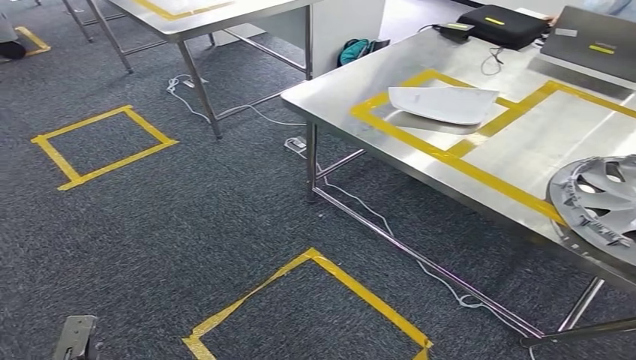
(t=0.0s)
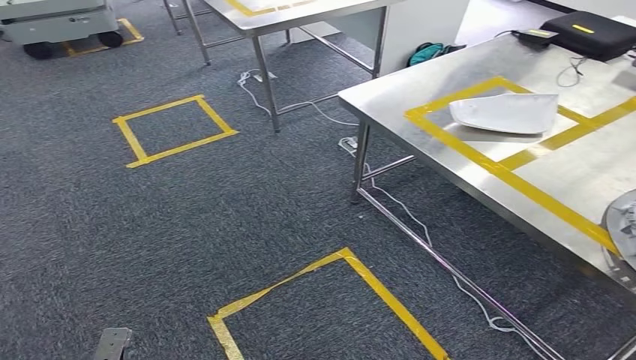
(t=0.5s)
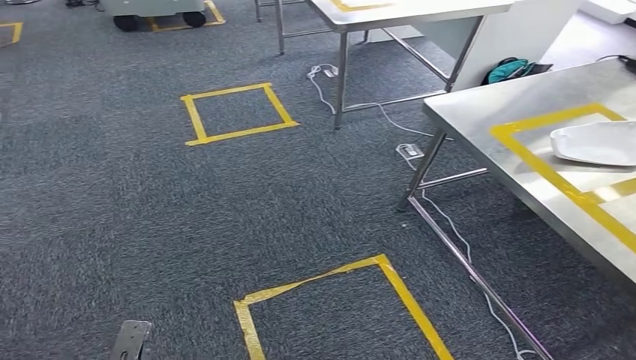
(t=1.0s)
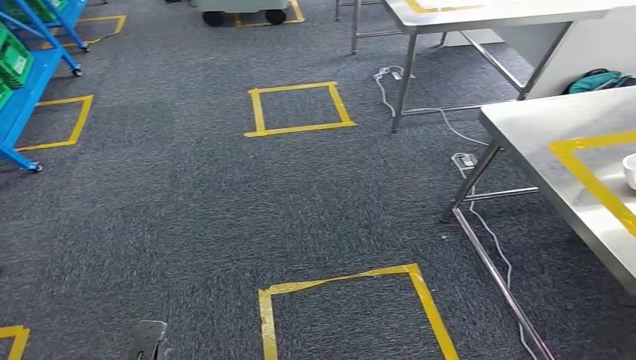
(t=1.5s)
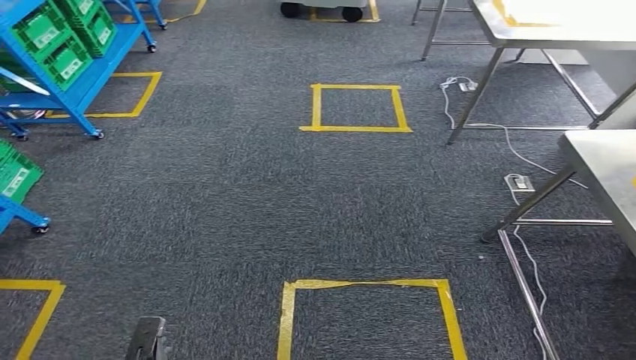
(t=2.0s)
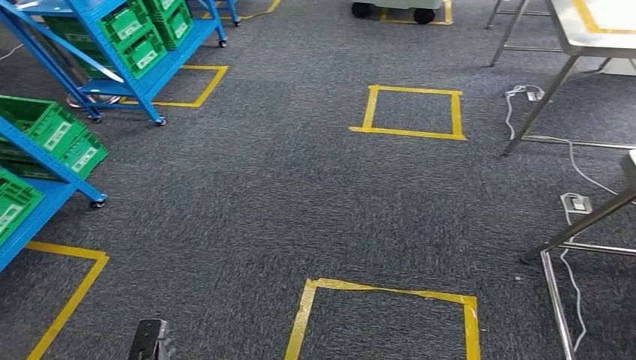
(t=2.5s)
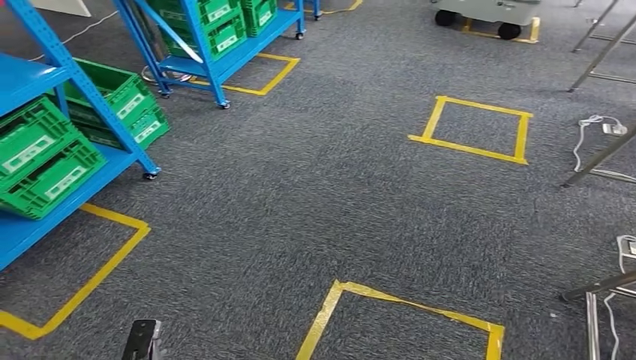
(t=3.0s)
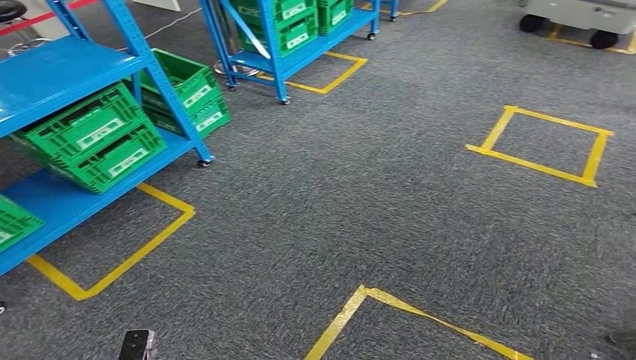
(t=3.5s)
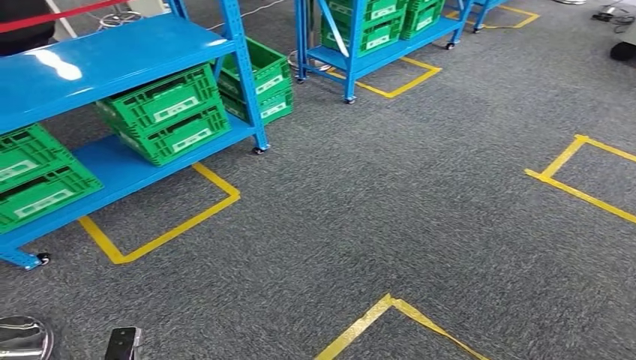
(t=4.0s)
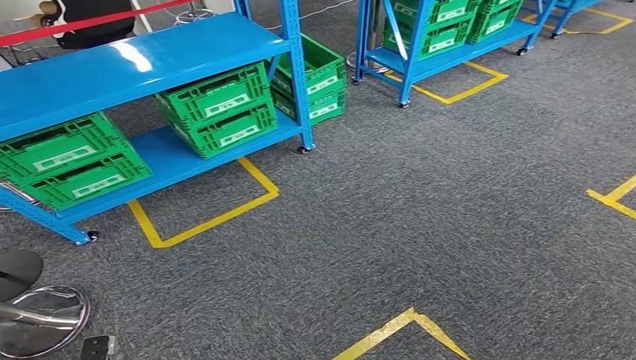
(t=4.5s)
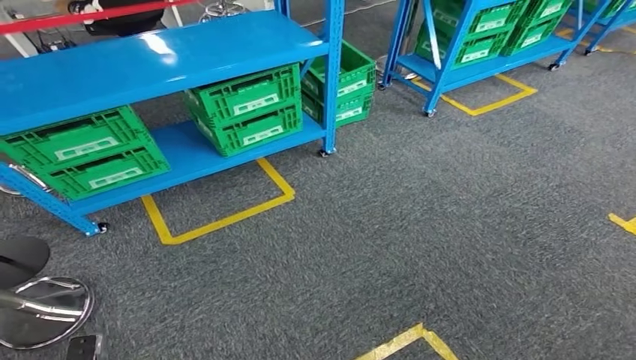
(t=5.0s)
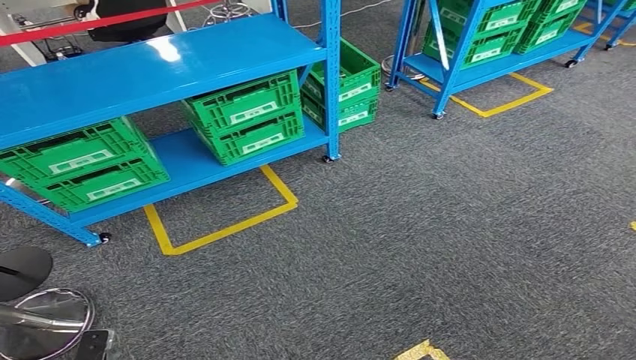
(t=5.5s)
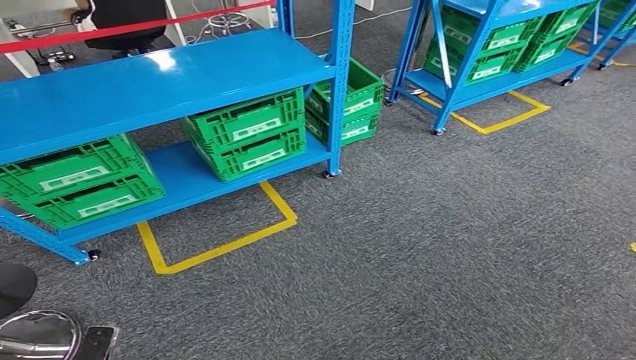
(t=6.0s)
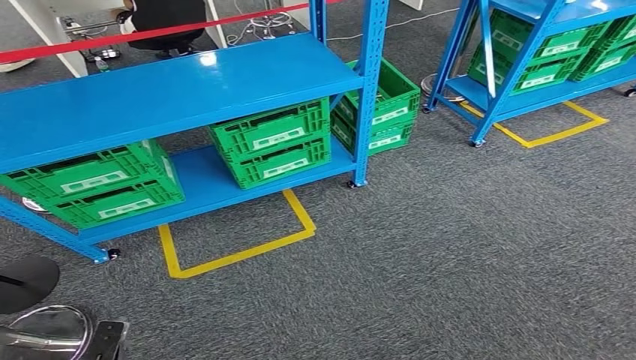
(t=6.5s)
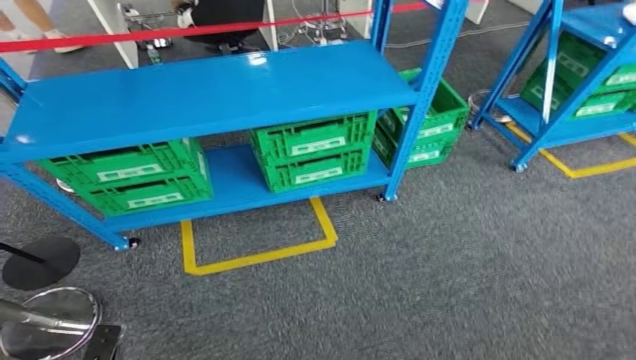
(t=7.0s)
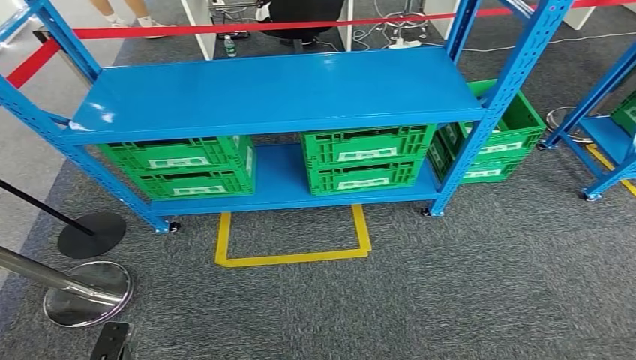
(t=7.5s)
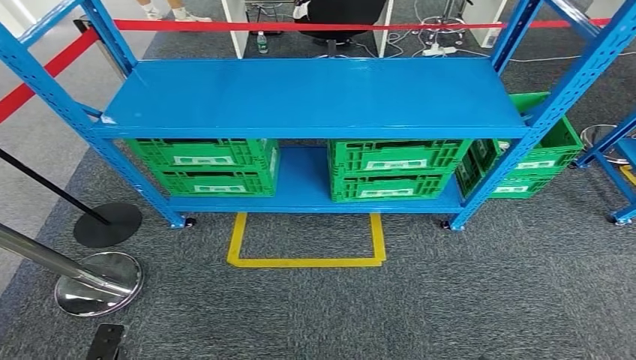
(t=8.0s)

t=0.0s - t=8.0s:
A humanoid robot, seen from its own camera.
Step, t=0.0s - t=8.0s: Return to the initial position at the workbench.
